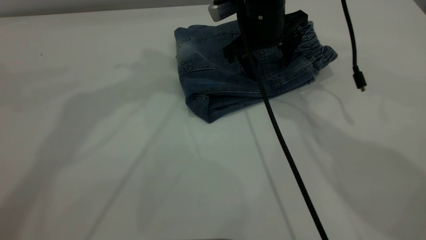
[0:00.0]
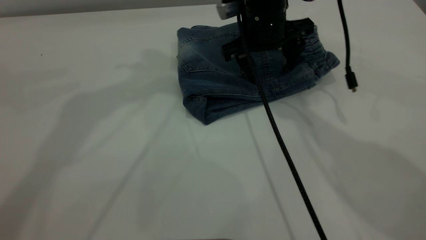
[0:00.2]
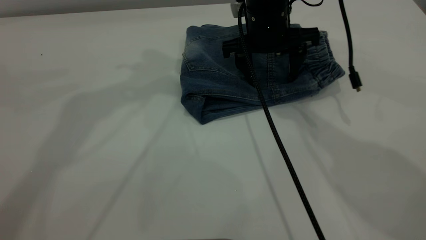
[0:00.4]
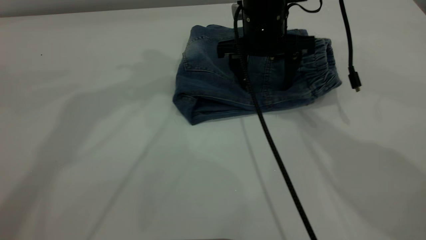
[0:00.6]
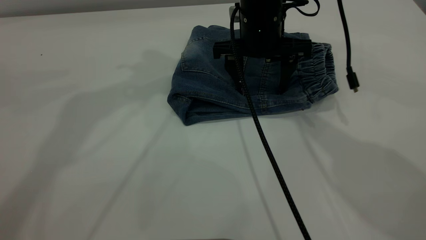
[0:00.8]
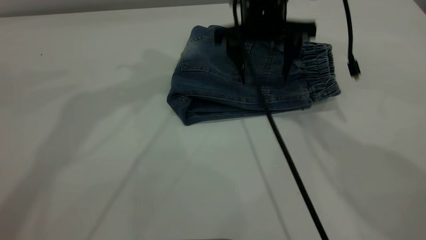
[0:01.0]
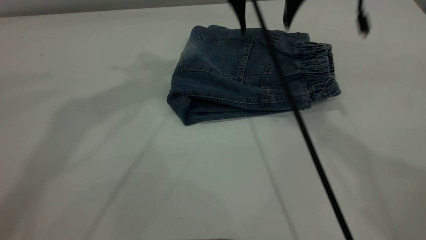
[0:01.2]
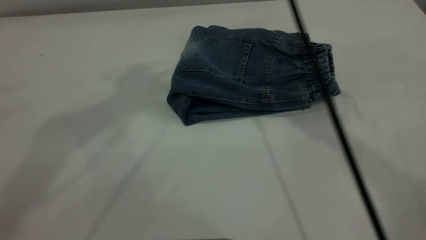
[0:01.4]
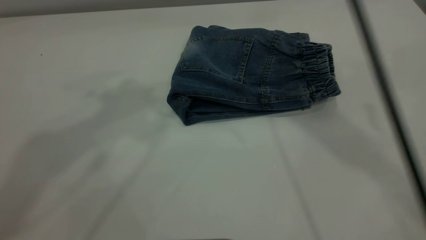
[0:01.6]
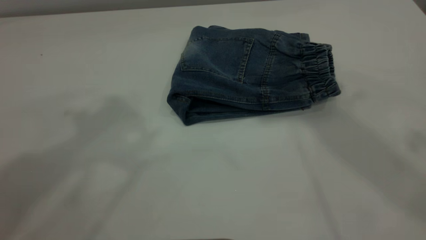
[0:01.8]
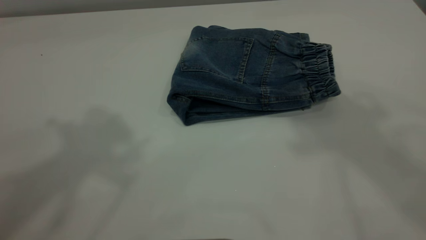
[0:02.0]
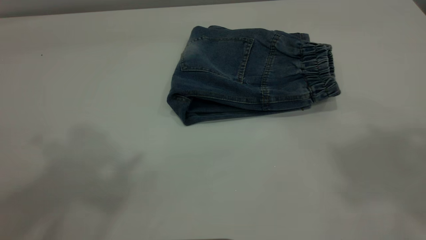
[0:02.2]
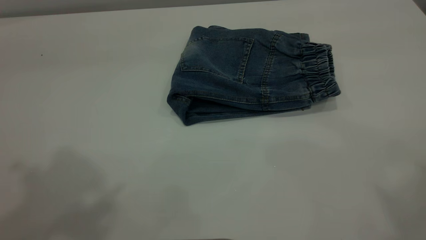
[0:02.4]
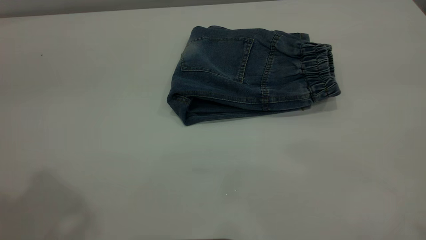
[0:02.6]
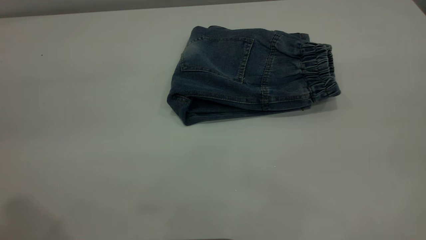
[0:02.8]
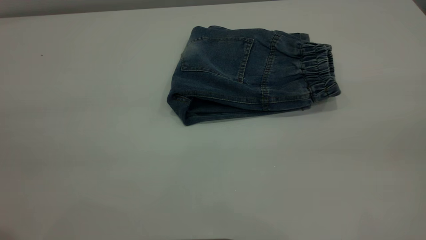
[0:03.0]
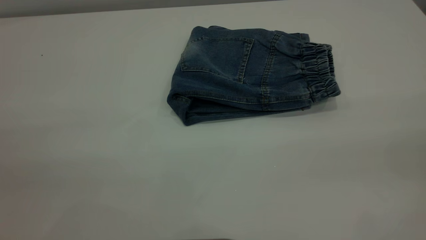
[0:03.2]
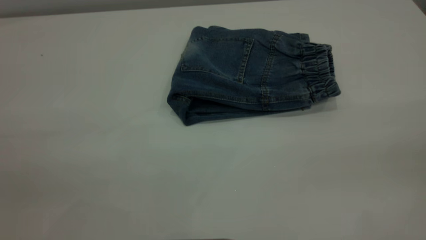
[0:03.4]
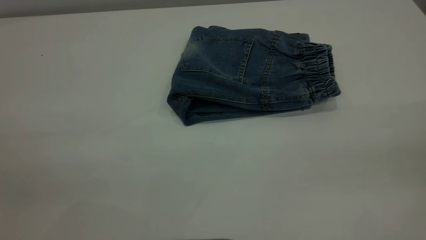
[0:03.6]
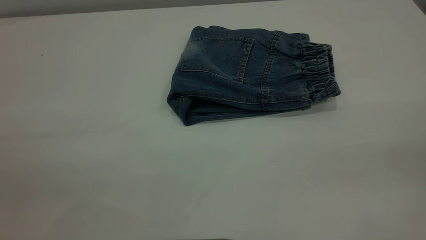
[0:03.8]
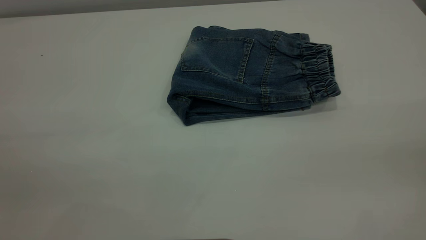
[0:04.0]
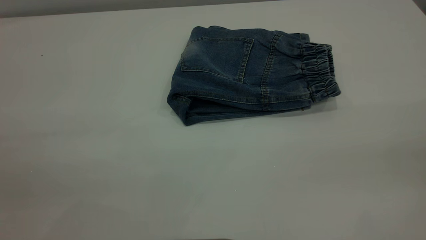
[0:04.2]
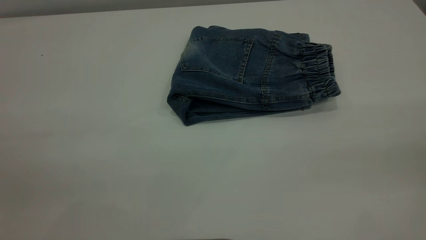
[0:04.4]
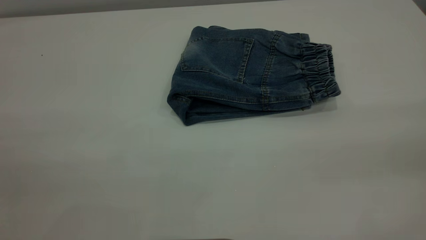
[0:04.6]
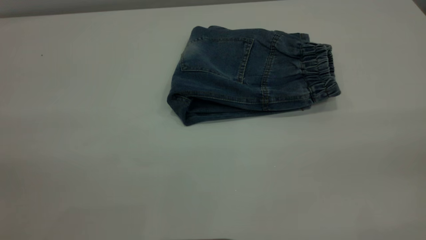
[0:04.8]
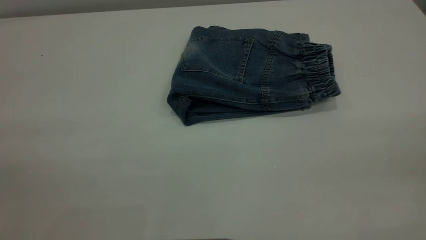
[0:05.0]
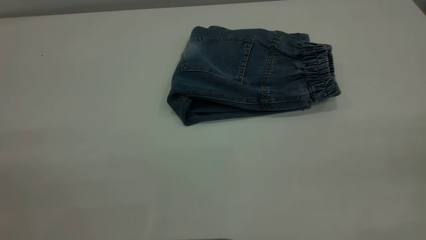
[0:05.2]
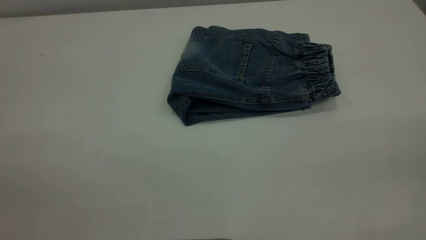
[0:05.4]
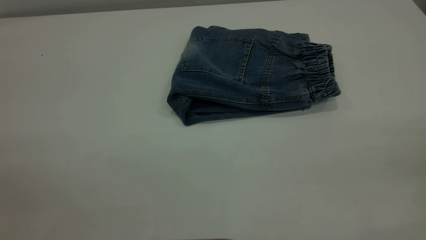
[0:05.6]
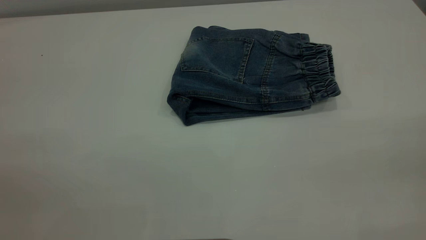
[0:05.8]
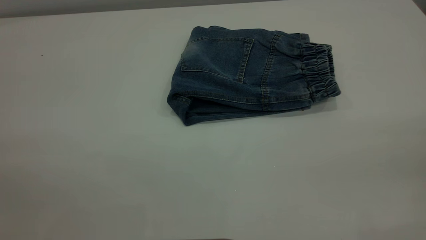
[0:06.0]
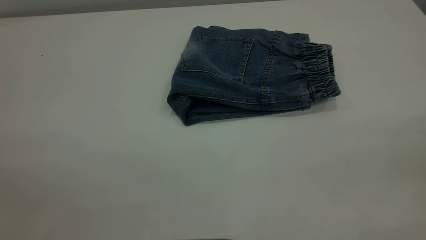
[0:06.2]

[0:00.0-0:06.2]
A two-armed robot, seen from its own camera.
0:00.0 to 0:01.6: The left gripper shifts roughly 15 cm backward and upward; the right gripper travels upward by approximately 30 cm.
0:01.6 to 0:03.2: The right gripper travels backward and to the right by about 40 cm.
